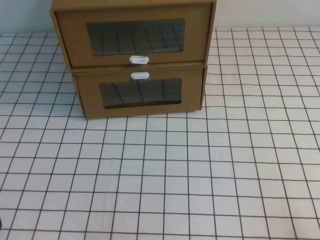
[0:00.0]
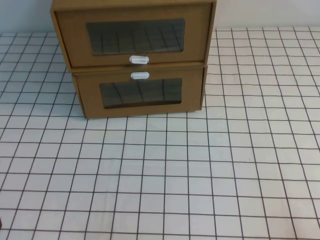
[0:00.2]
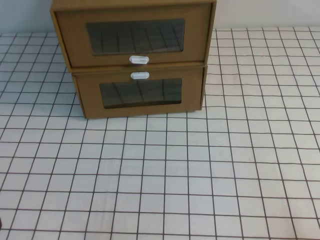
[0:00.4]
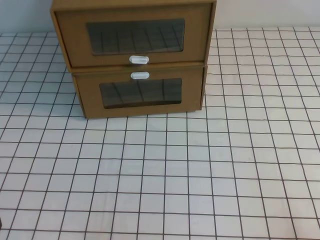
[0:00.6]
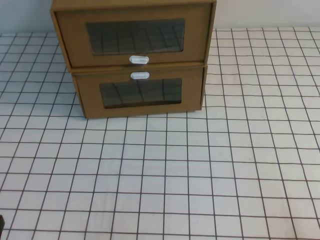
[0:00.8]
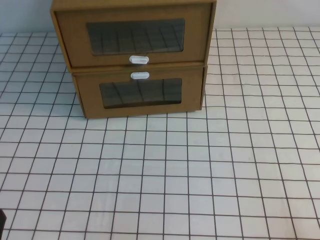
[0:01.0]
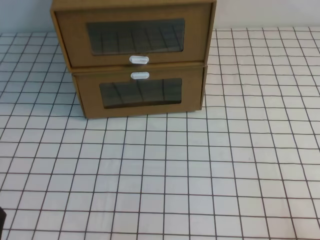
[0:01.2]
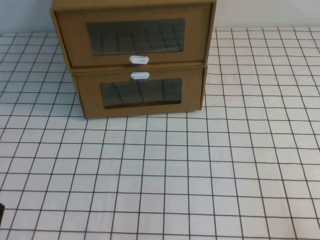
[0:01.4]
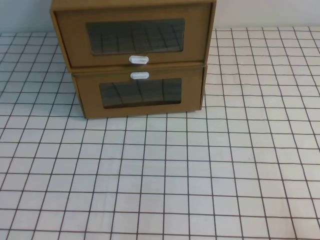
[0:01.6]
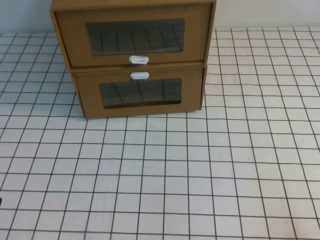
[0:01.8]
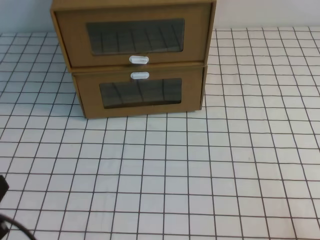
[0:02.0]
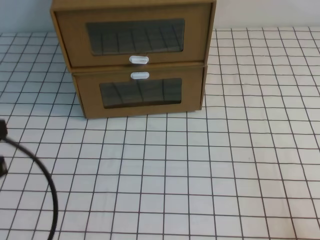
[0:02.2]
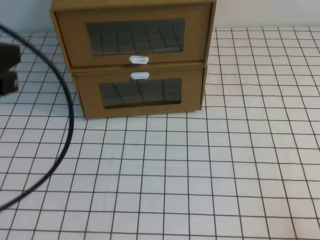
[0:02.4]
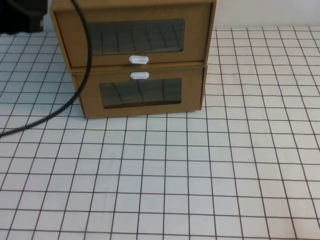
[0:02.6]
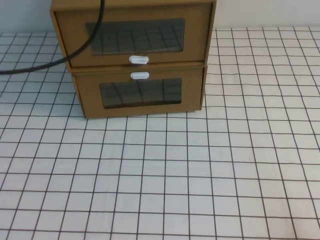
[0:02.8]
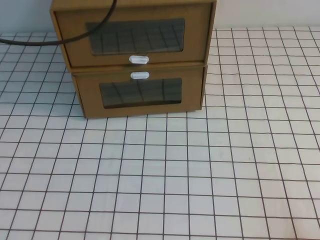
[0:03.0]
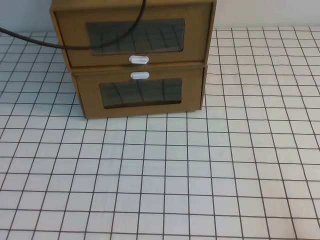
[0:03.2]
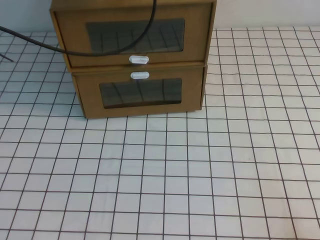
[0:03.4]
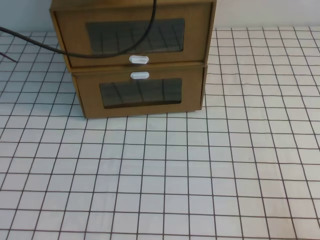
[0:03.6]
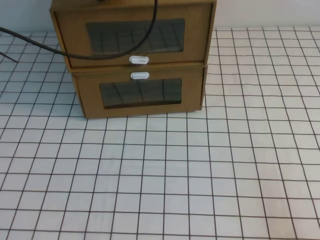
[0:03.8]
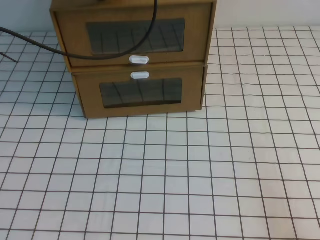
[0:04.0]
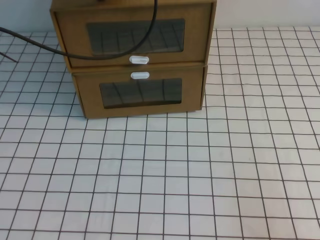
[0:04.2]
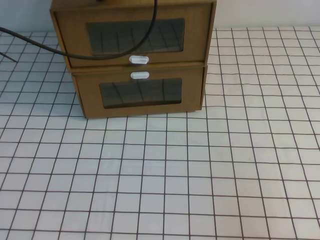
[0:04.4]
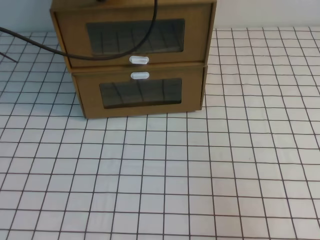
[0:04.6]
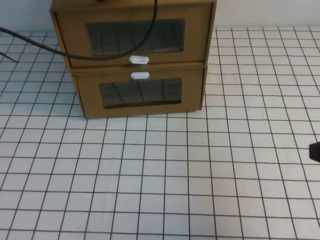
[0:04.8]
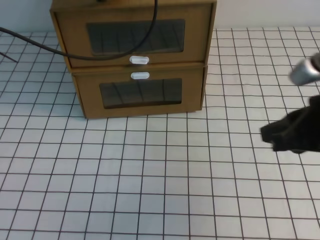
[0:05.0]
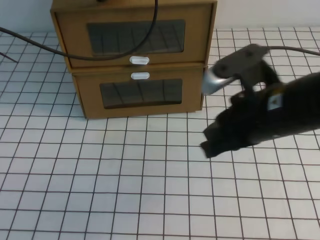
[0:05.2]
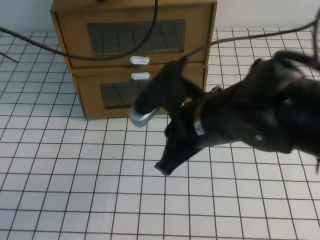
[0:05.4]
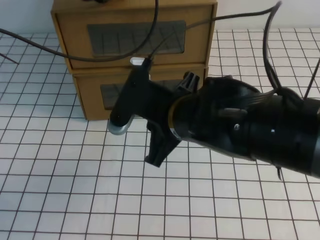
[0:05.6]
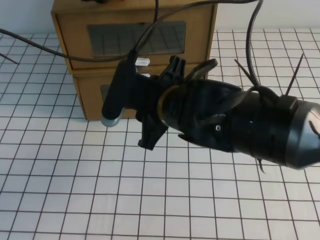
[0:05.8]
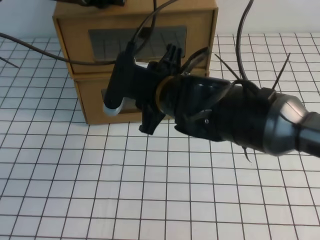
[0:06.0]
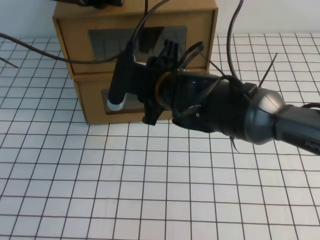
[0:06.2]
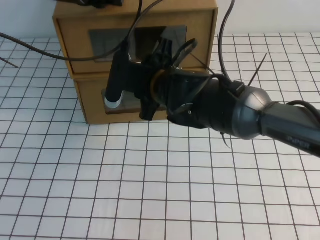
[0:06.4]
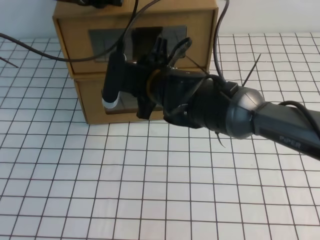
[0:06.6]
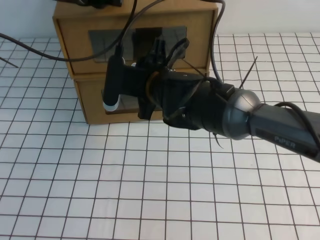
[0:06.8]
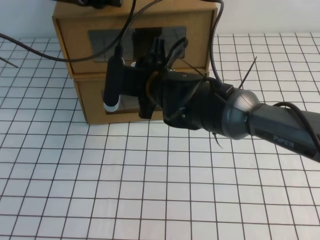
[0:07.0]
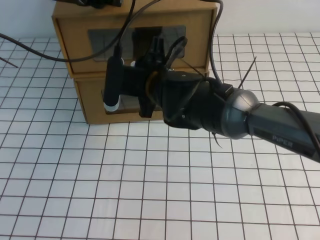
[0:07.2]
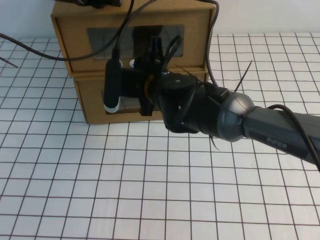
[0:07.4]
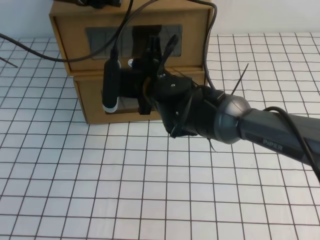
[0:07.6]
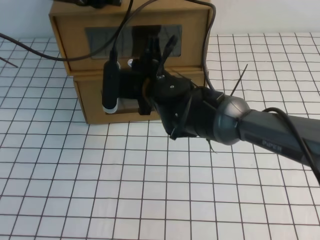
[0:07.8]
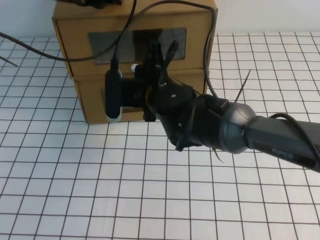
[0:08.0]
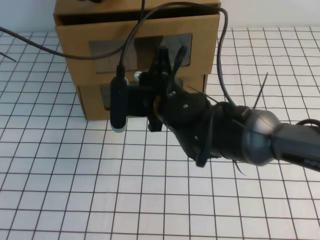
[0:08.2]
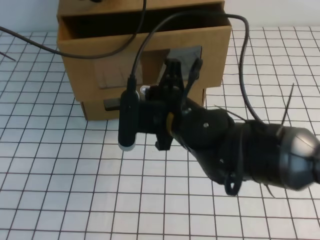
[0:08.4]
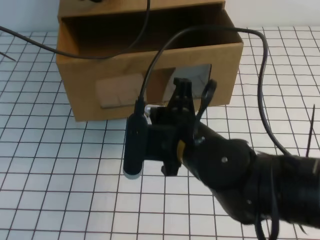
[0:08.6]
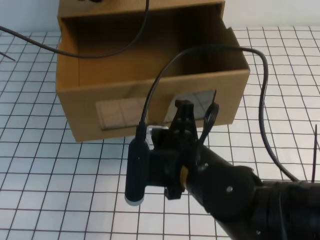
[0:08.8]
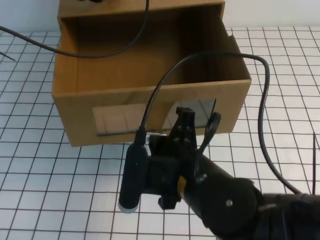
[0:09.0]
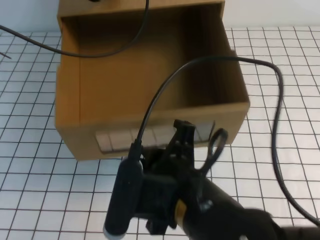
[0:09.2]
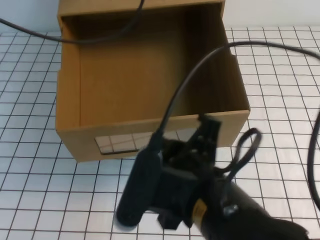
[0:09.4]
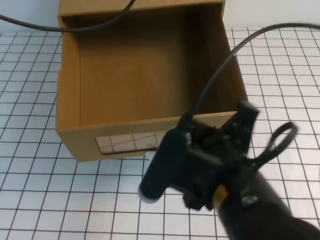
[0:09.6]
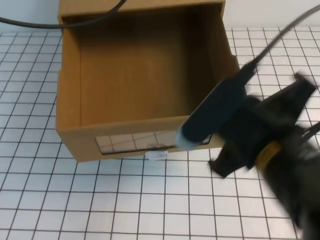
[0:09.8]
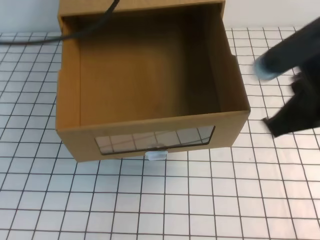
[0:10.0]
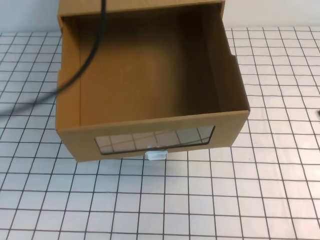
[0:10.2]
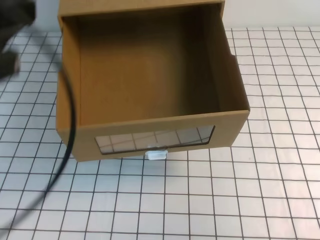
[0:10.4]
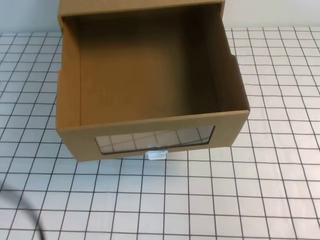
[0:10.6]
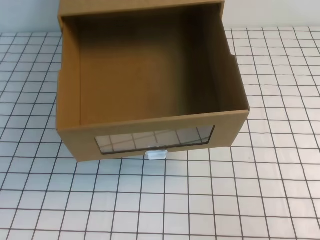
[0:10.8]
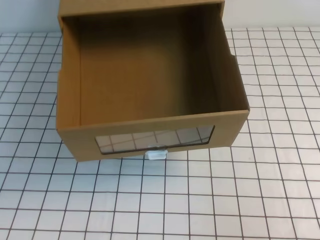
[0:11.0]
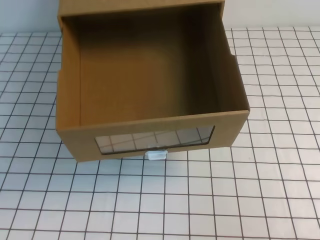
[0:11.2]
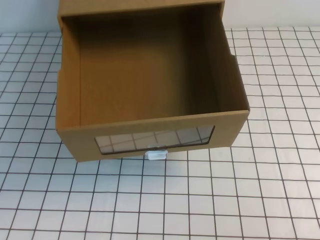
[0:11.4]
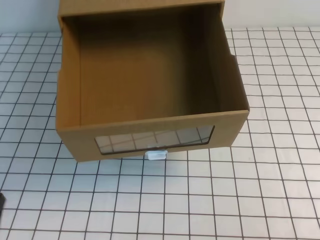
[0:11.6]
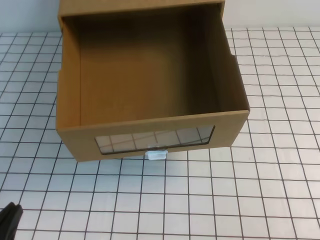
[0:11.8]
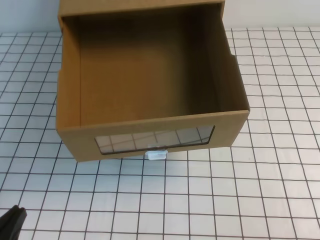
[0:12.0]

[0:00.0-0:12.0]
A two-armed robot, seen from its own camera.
Task of the whole recording: open the shoebox on the white tablecloth.
0:03.0 to 0:04.4: The right gripper moves upward, some 5 cm. The left gripper travels forward, downward and to the right by roughly 10 cm.
0:04.4 to 0:06.0: The right gripper moves to the left and forward, roughly 35 cm, and opens its fingers.
0:06.0 to 0:07.6: The right gripper heads forward, covering about 10 cm, and closes up.
0:07.6 to 0:09.0: The right gripper heads backward, covering approximately 20 cm.
0:09.0 to 0:10.4: The right gripper travels to the right and upward by some 25 cm. Meanwhile the left gripper travels backward by roughly 20 cm.
0:10.4 to 0:12.0: The right gripper shifts roughly 15 cm backward and downward. Meanwhile the left gripper travels downward and backward by approximately 30 cm.

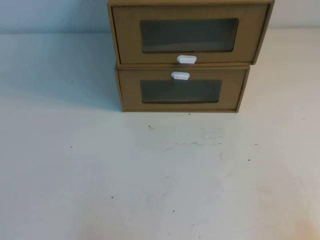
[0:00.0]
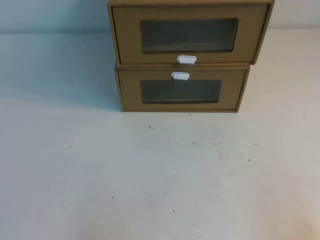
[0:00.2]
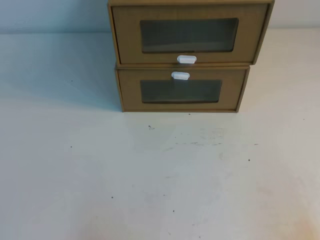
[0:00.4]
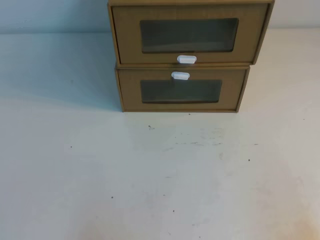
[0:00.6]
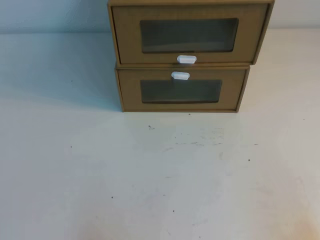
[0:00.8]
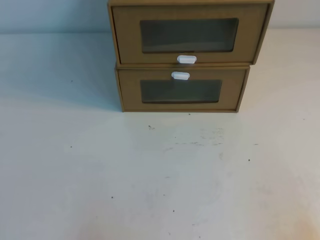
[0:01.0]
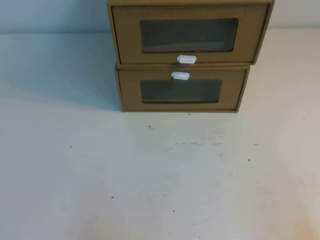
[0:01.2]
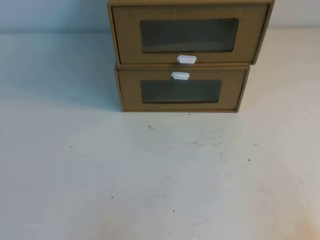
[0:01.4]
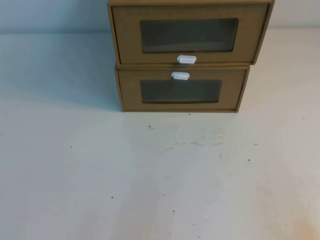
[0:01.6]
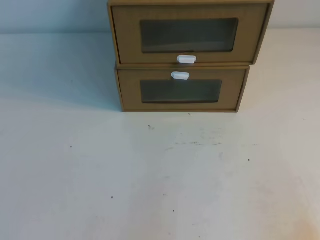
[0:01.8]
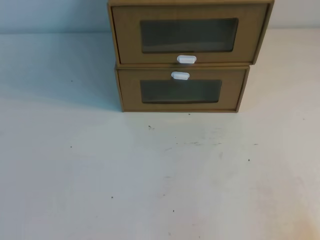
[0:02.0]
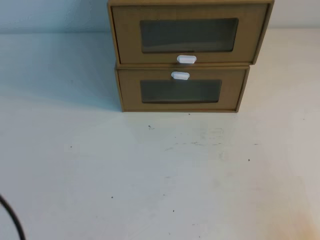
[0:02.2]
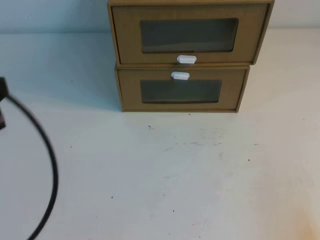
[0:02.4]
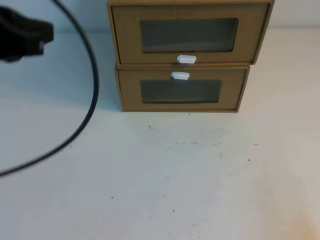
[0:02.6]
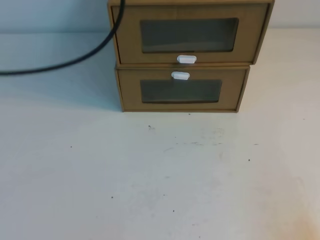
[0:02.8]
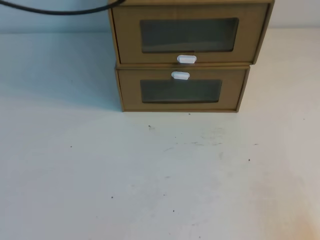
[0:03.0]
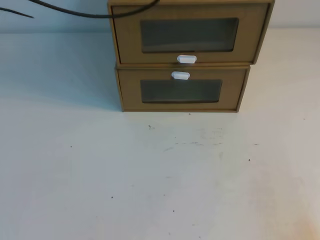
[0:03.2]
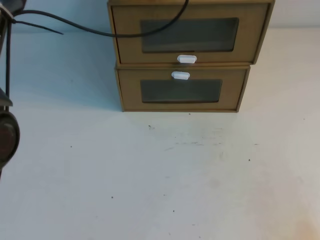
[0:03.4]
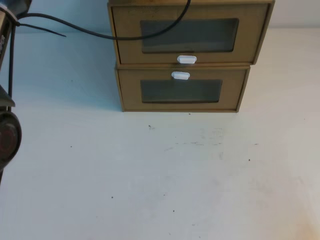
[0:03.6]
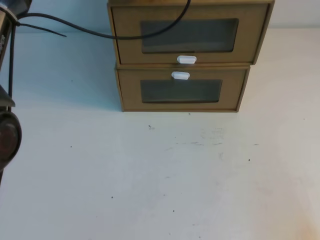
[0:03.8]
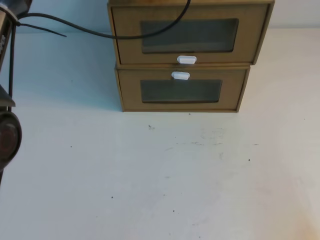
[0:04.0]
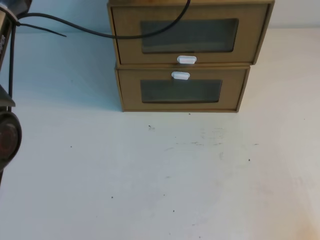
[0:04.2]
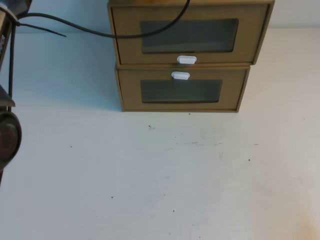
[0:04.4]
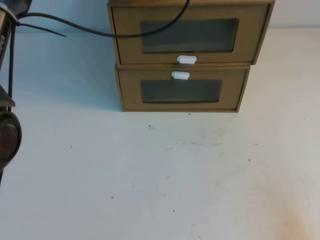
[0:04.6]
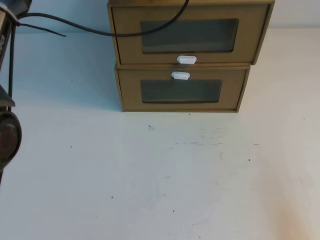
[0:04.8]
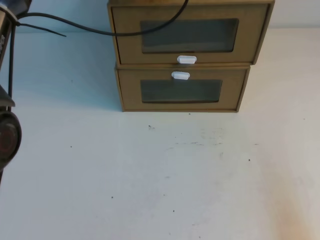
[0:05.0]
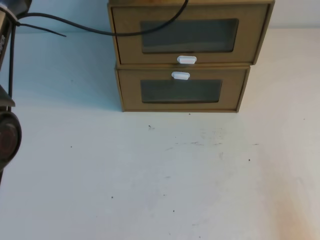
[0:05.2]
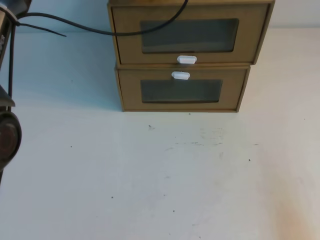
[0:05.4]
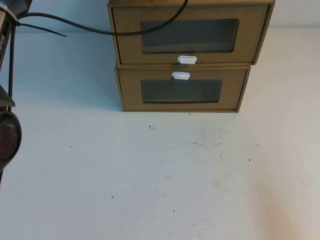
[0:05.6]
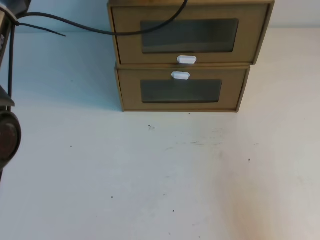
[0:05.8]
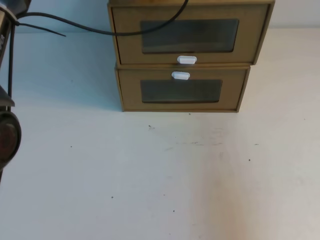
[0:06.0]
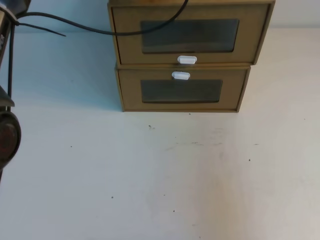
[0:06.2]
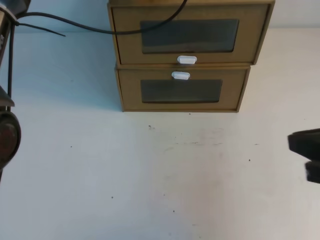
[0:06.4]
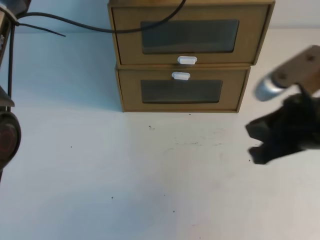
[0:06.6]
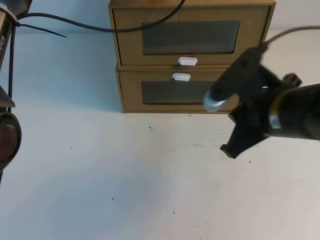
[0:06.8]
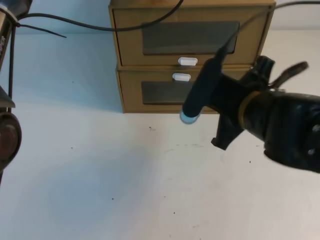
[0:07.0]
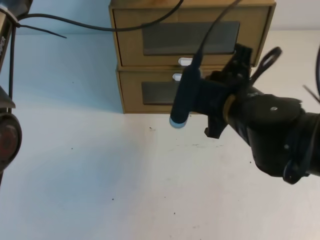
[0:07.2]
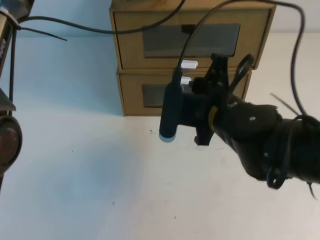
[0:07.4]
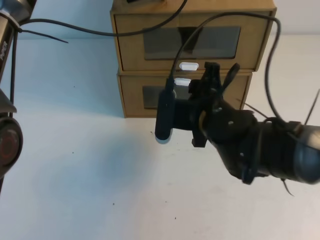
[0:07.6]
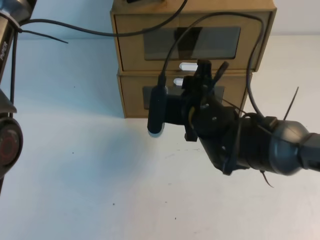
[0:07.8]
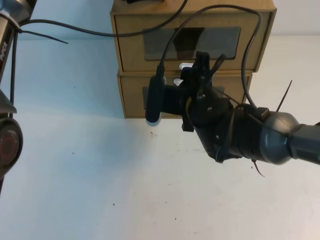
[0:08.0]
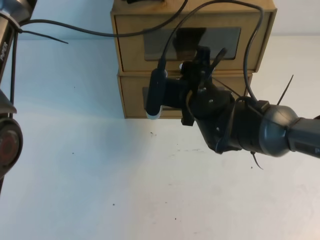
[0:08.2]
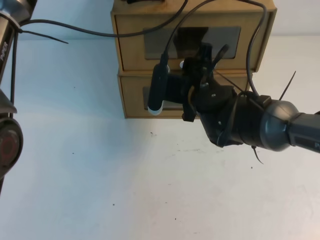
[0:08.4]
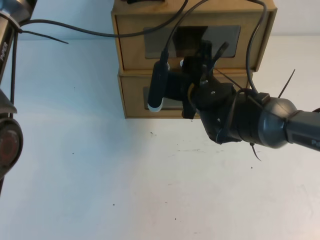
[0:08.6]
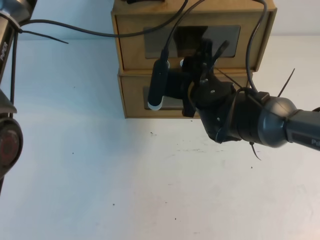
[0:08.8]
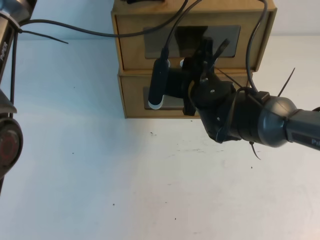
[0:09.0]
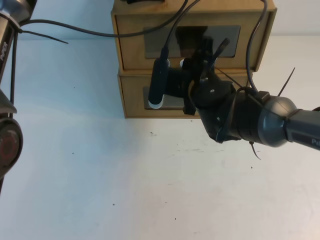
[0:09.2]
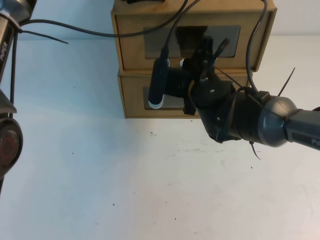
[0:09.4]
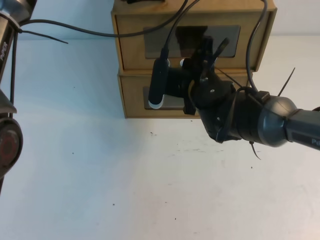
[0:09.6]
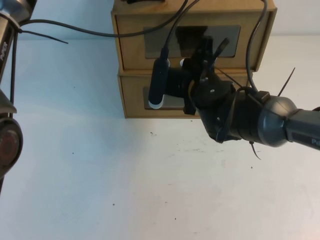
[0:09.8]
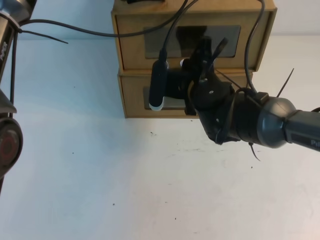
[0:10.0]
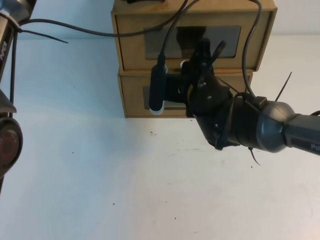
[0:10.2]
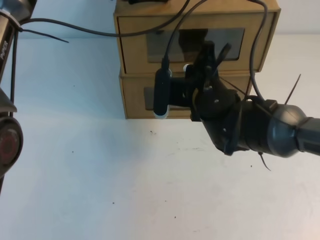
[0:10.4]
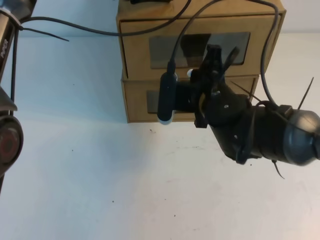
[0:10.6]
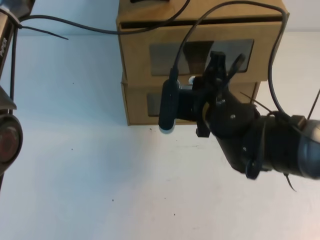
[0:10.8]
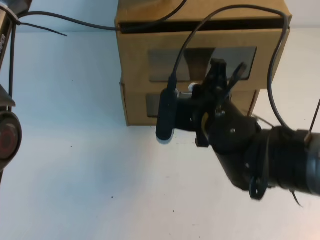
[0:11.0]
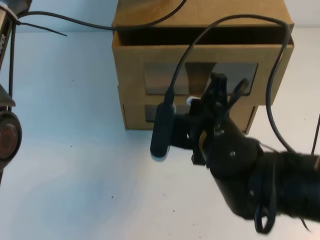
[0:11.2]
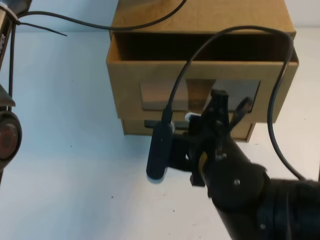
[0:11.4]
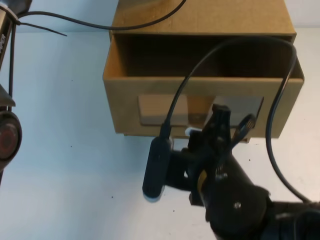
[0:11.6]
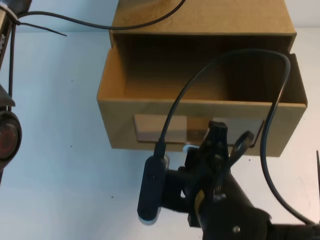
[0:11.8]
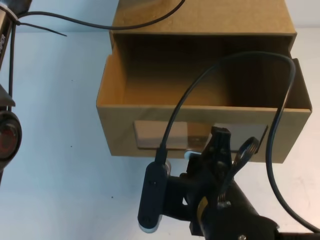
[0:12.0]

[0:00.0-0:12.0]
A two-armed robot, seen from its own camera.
Task of the whole recording: open the shoebox on the table.
0:01.6 to 0:03.0: The left gripper moves upward and forward, approximately 40 cm.
0:03.0 to 0:04.4: The left gripper travels forward, downward and to the right by some 20 cm.
0:04.4 to 0:06.0: The right gripper goes some 10 cm upward.
0:06.0 to 0:07.6: The right gripper heads forward and to the left, covering roughly 30 cm, and opens its fingers.
0:07.6 to 0:09.0: The right gripper goes about 10 cm forward, and opens, then closes once more.
0:09.0 to 0:10.4: The right gripper closes up.
0:10.4 to 0:12.0: The right gripper moves backward, some 20 cm.
